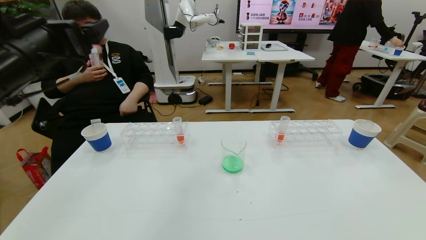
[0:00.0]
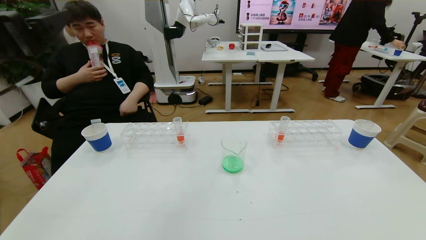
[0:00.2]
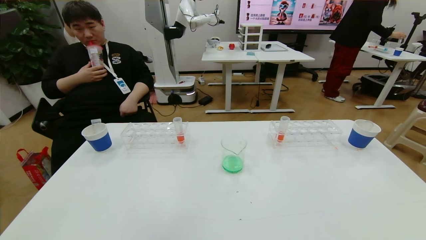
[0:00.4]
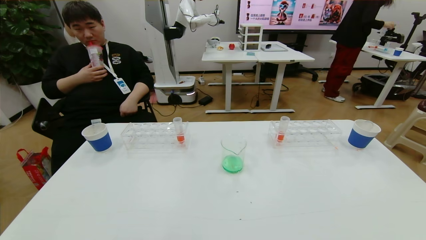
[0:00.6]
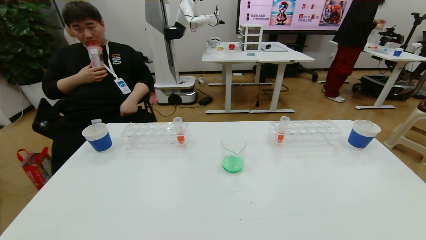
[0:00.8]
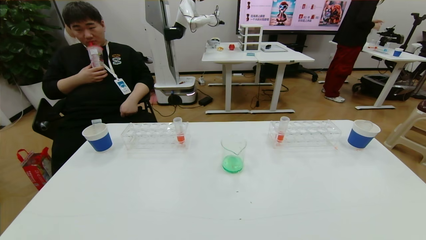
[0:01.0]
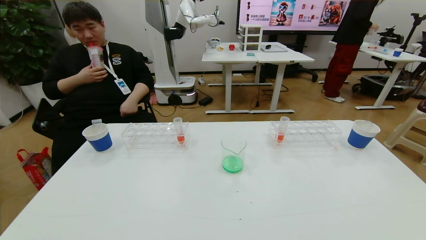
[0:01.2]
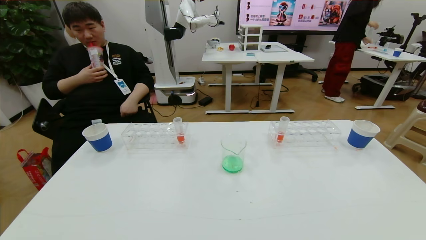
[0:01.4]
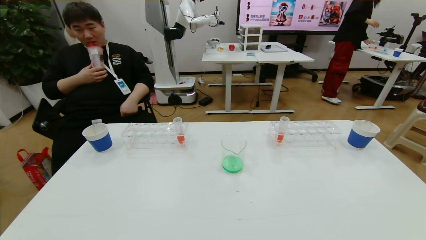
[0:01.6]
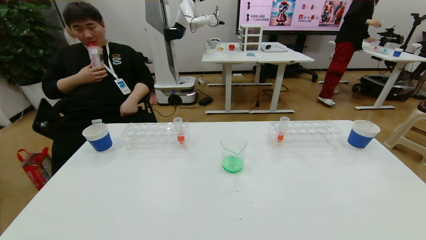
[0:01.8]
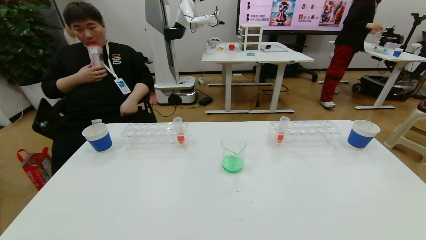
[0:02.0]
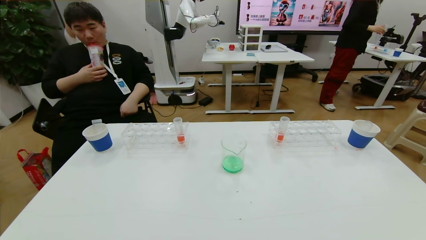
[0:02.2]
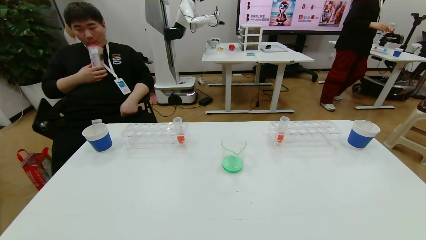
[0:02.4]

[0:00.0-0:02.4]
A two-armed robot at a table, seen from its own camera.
Task of the whole recording: pick up the test tube with yellow pigment and the test tube with blue pigment by grippers and pour them into the beaker.
0:00.0 to 0:01.2: The left gripper moves backward, about 30 cm.
